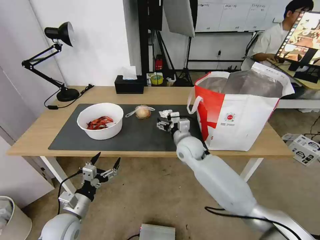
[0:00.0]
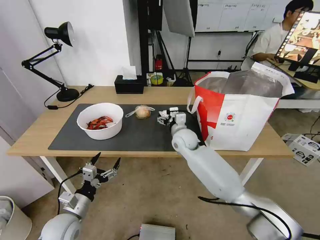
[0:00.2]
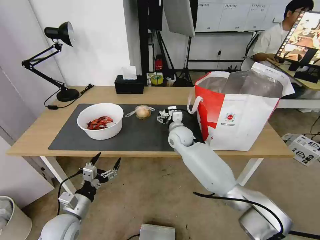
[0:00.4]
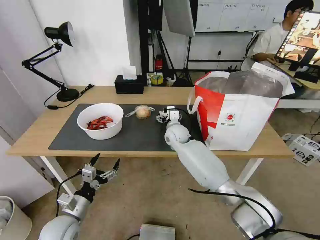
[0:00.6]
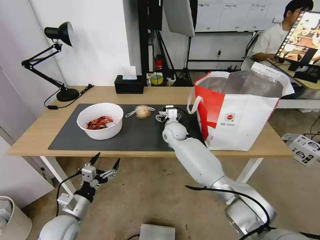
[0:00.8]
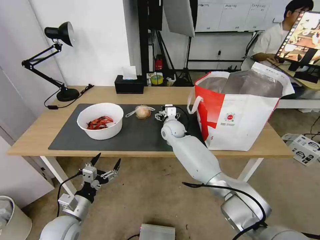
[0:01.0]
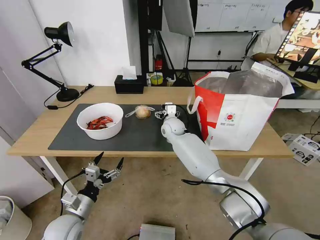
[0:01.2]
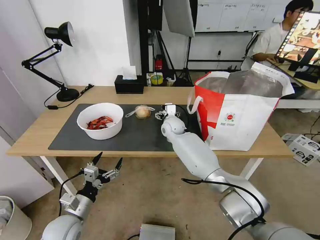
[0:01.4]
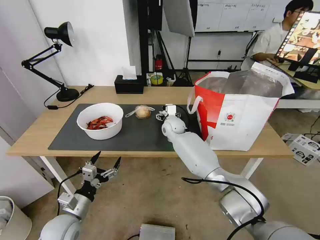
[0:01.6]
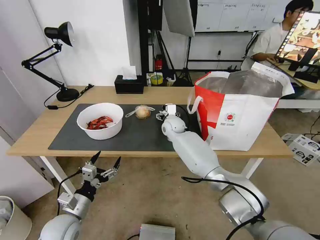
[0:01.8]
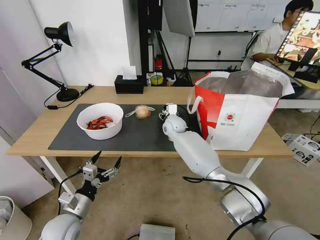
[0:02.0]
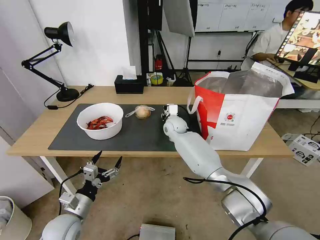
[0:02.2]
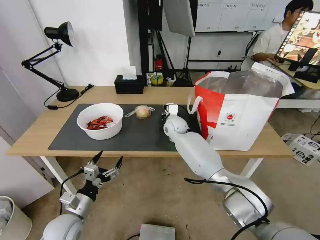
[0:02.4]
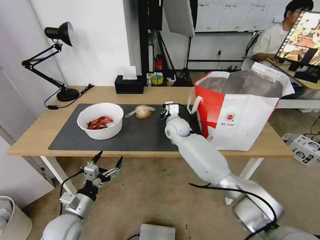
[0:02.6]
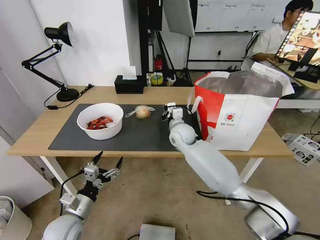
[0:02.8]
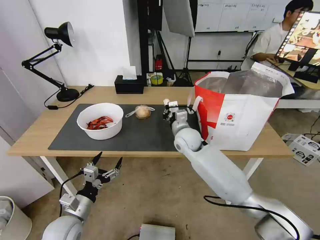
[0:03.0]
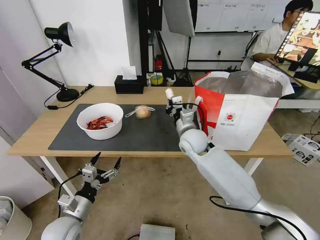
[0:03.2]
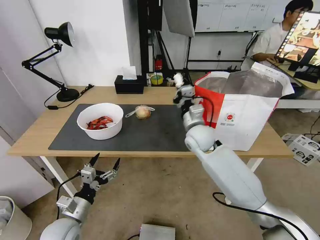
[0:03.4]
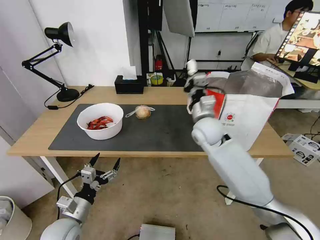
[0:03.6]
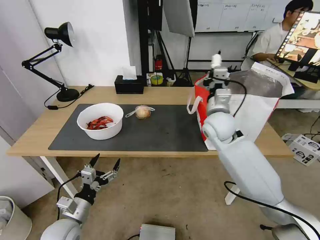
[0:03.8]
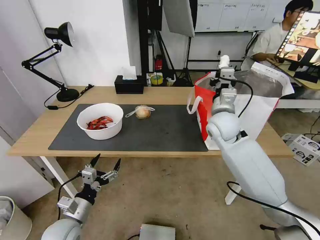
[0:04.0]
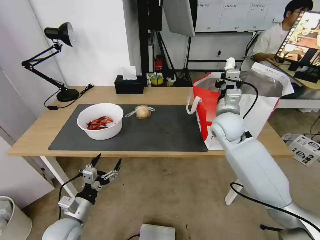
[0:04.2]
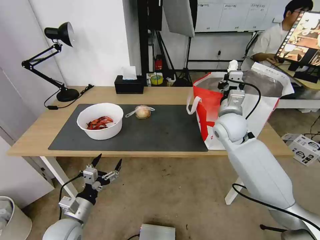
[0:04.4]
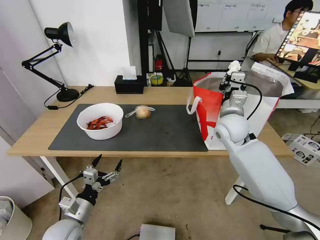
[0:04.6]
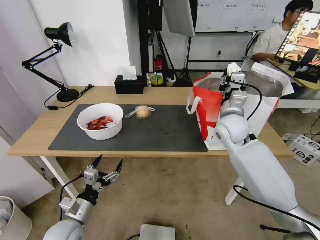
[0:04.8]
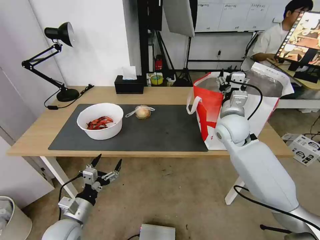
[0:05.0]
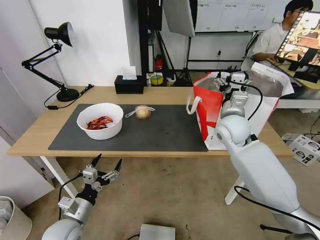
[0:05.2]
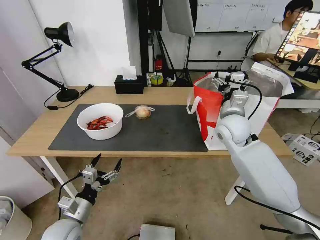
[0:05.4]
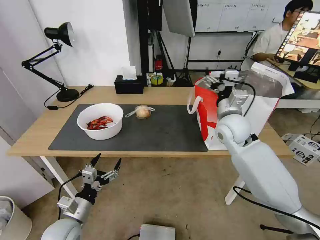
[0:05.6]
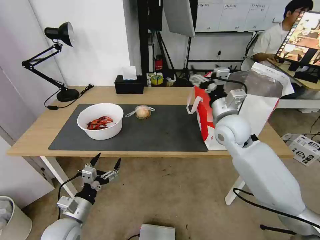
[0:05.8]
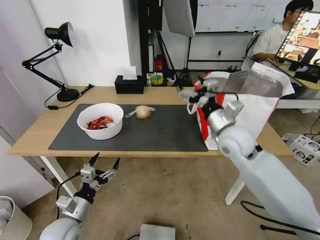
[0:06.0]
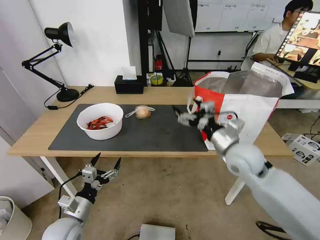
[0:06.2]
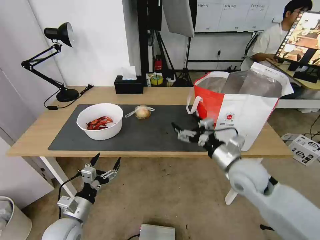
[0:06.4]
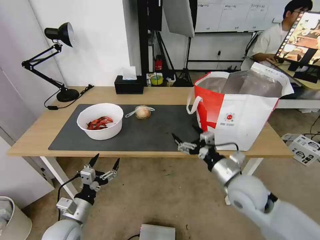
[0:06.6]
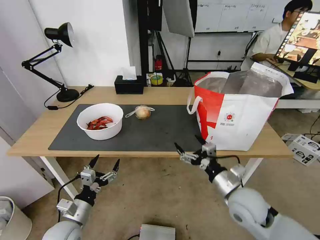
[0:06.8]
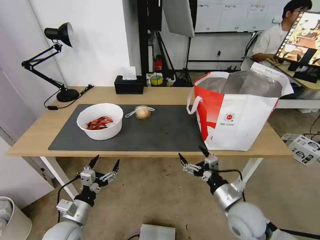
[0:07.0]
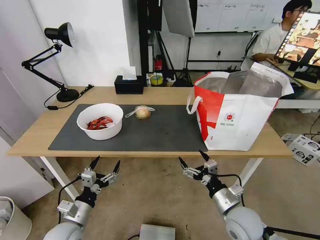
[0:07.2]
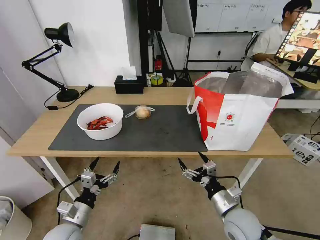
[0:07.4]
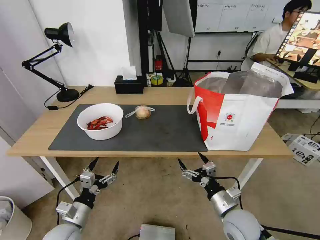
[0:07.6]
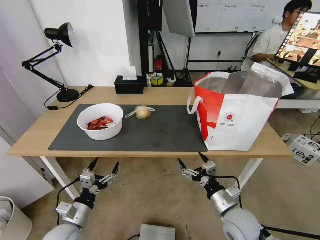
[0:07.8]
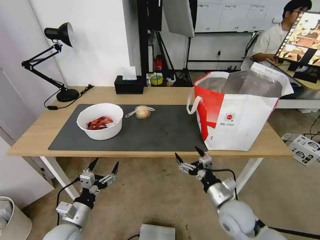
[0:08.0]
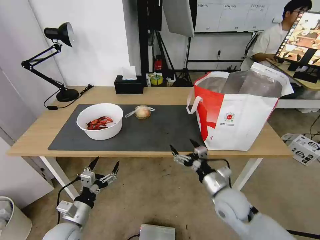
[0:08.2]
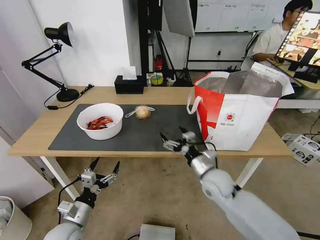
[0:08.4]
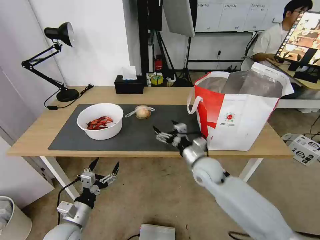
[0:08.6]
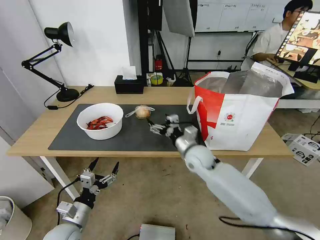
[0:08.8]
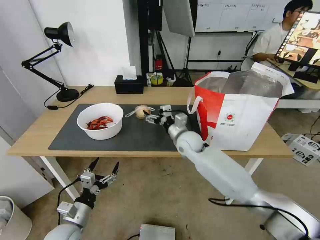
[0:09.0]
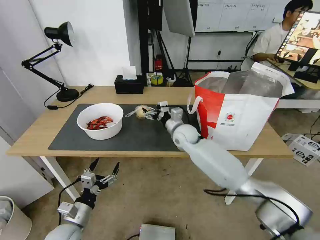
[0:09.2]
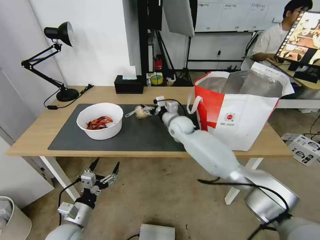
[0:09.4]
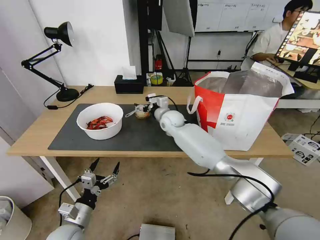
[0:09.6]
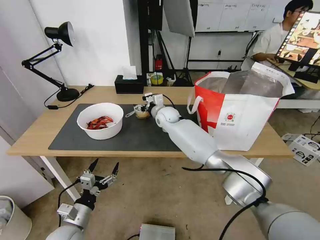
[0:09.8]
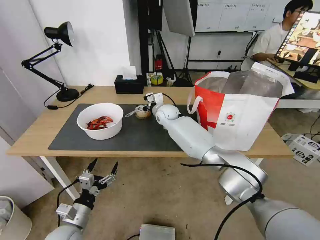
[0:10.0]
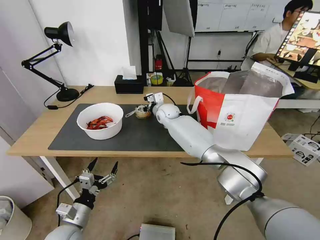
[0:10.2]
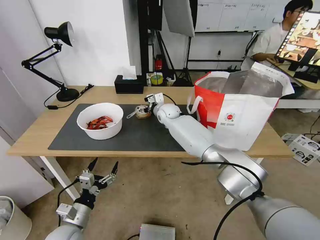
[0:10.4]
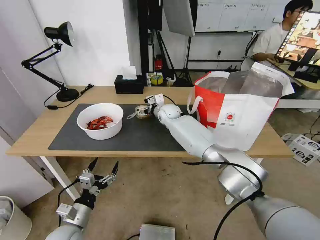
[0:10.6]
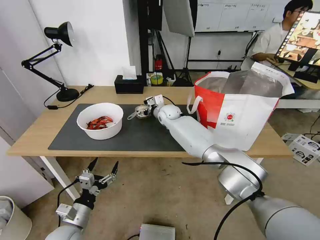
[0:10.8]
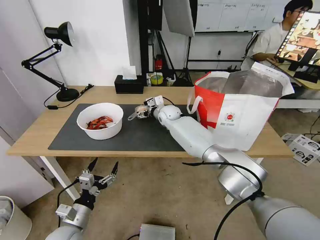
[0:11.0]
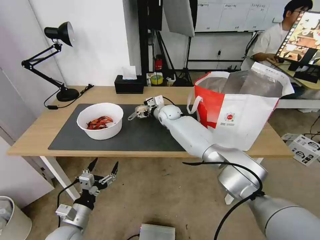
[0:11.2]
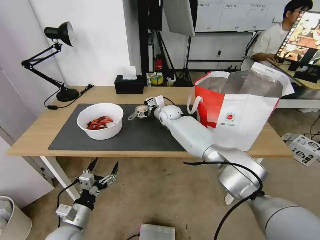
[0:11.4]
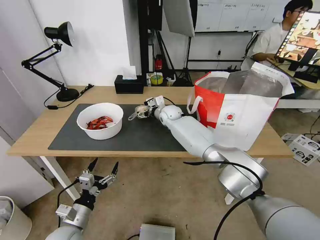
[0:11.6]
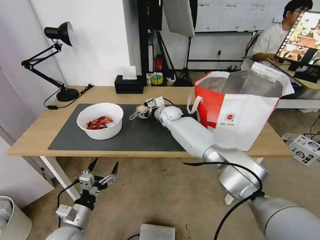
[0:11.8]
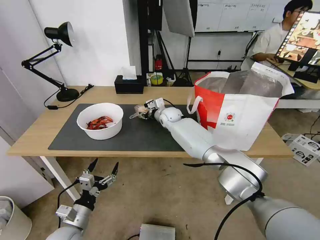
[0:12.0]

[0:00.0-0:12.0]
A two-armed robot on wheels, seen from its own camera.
Task of the whole recording: Pick up the trash from the table and place it into the takeout bag.
0:00.0 to 0:01.6: The right gripper travels forward by approximately 15 cm.
0:01.6 to 0:03.0: The right gripper heads backward, covering some 10 cm, and closes its fingers.
0:03.0 to 0:04.4: The right gripper shifts some 15 cm to the right and upward.
0:04.4 to 0:06.0: The right gripper heads backward, covering some 5 cm, and opens up.
0:06.0 to 0:07.6: The right gripper is displaced downward and backward by about 25 cm.
0:07.6 to 0:09.0: The right gripper heads forward and to the left, covering roughly 30 cm.
0:09.0 to 0:10.4: The right gripper travels forward and to the left by about 15 cm.
0:10.4 to 0:12.0: The right gripper closes its fingers.

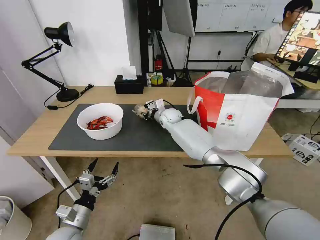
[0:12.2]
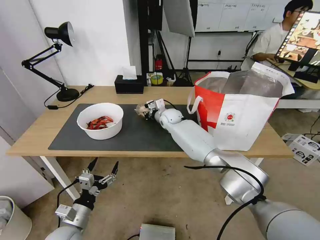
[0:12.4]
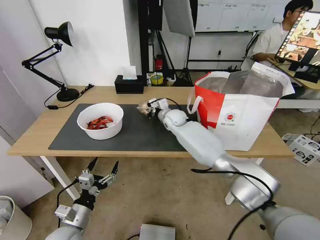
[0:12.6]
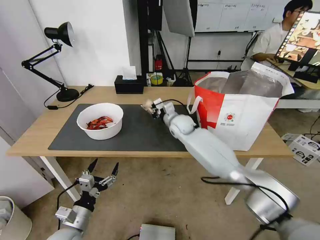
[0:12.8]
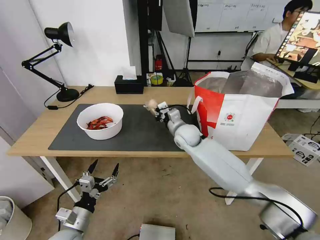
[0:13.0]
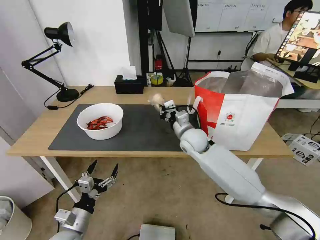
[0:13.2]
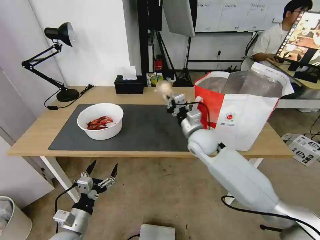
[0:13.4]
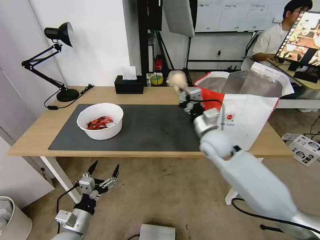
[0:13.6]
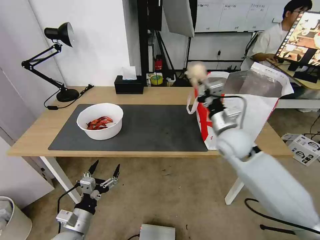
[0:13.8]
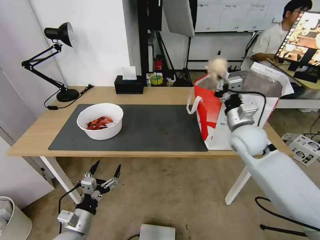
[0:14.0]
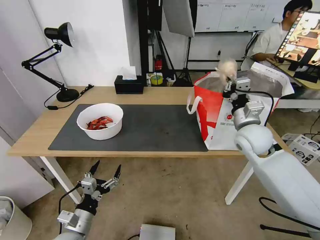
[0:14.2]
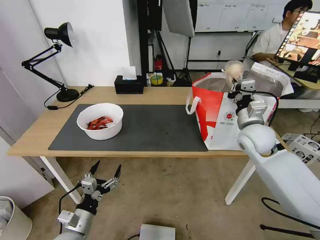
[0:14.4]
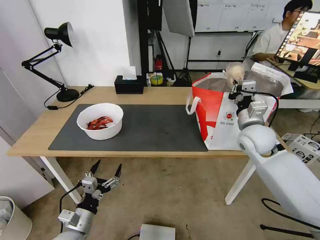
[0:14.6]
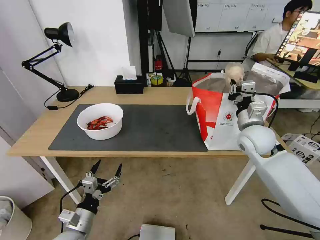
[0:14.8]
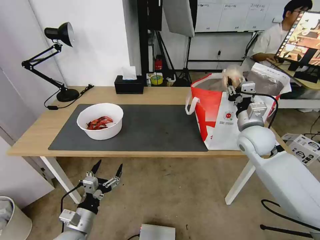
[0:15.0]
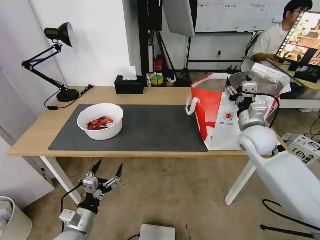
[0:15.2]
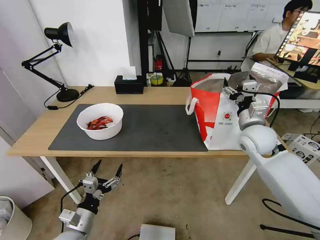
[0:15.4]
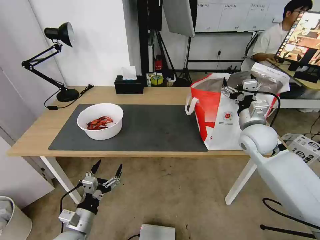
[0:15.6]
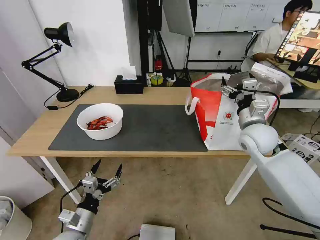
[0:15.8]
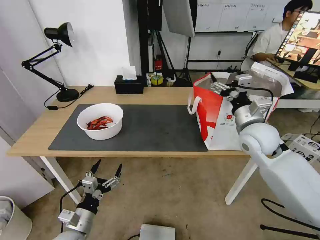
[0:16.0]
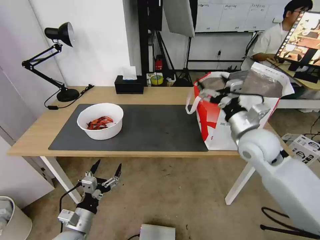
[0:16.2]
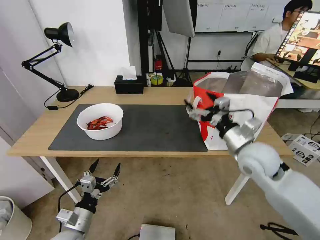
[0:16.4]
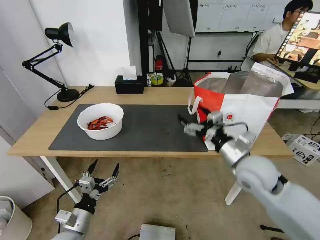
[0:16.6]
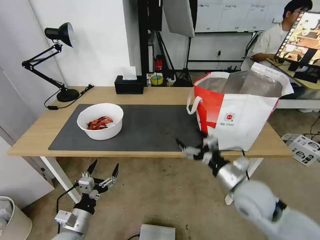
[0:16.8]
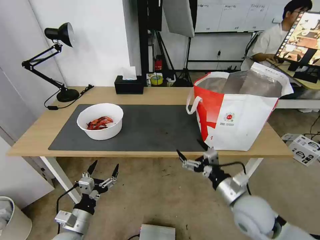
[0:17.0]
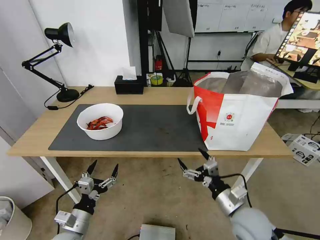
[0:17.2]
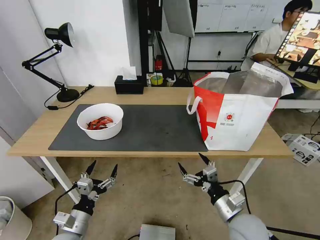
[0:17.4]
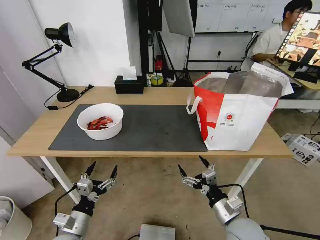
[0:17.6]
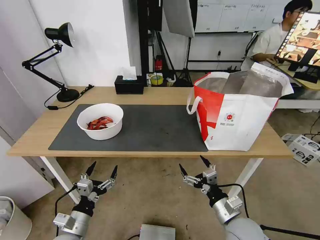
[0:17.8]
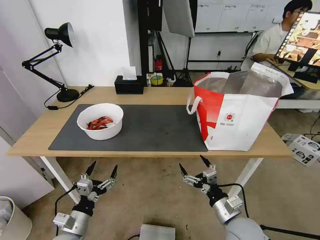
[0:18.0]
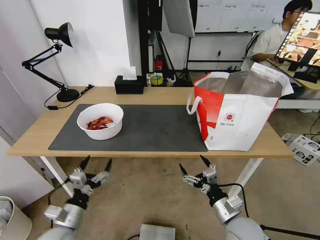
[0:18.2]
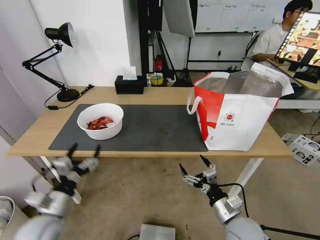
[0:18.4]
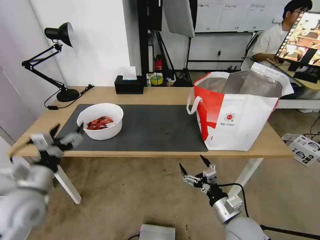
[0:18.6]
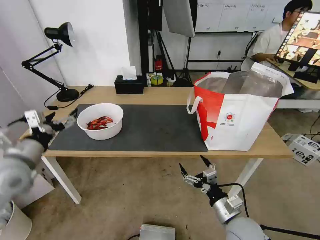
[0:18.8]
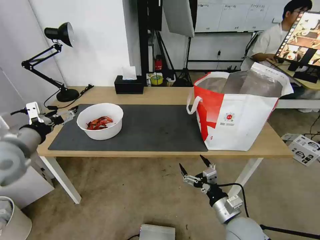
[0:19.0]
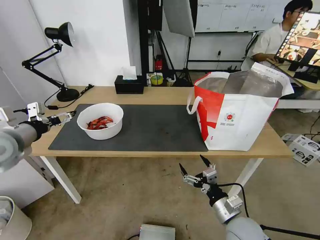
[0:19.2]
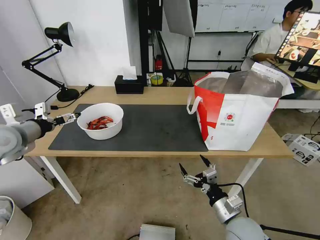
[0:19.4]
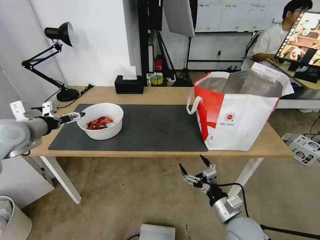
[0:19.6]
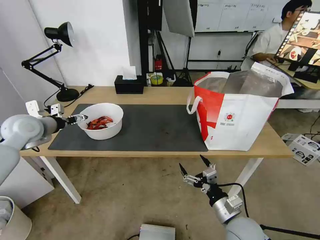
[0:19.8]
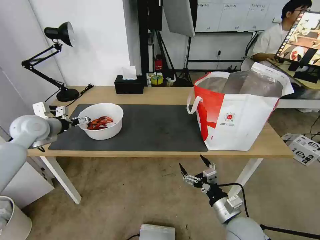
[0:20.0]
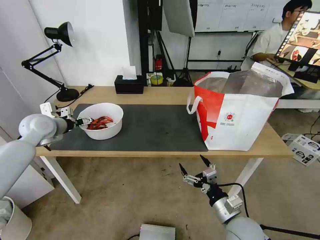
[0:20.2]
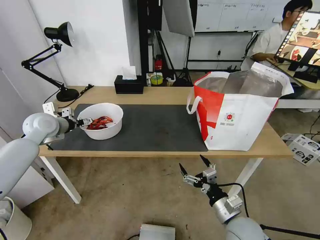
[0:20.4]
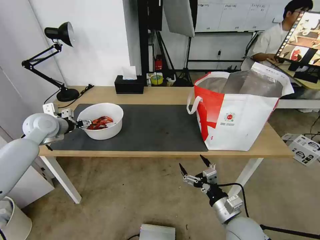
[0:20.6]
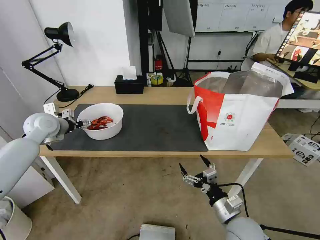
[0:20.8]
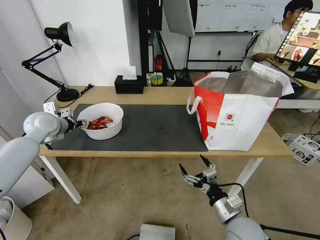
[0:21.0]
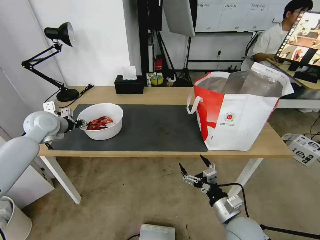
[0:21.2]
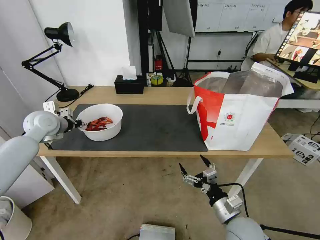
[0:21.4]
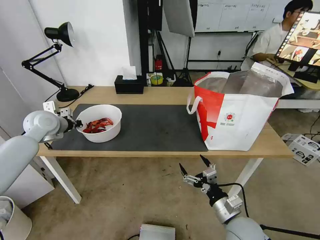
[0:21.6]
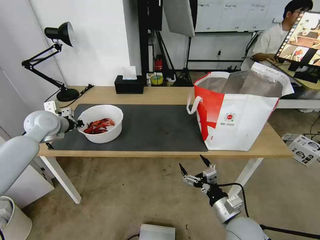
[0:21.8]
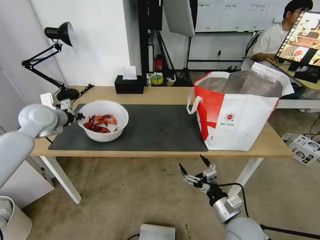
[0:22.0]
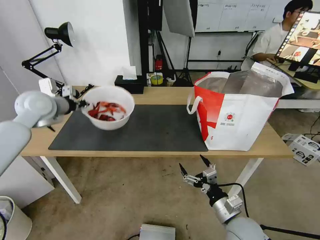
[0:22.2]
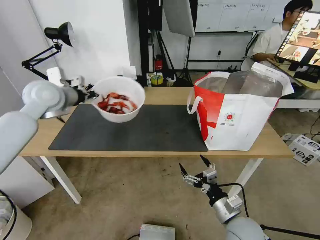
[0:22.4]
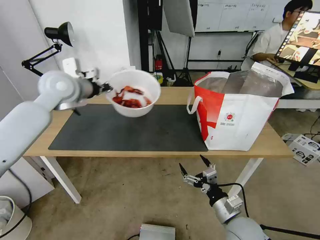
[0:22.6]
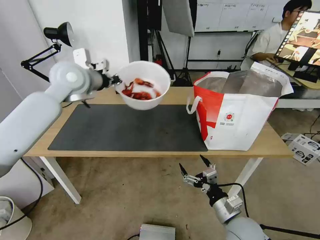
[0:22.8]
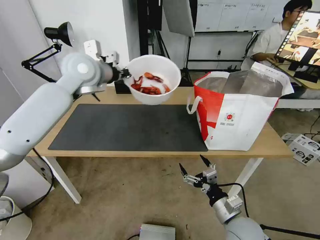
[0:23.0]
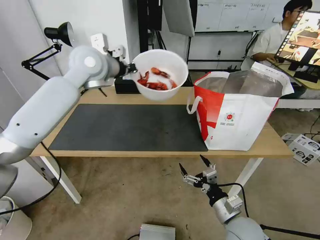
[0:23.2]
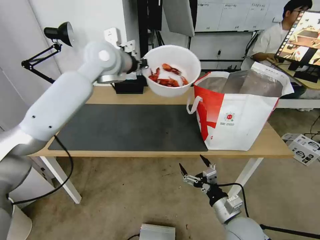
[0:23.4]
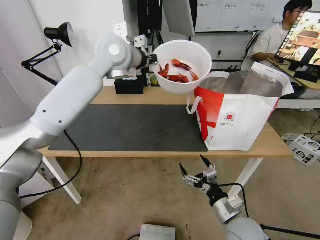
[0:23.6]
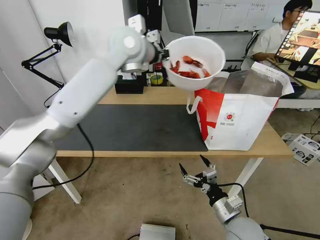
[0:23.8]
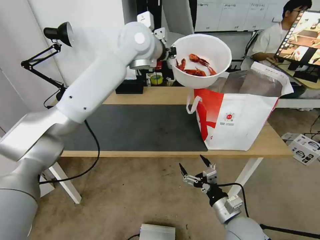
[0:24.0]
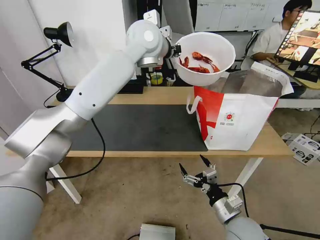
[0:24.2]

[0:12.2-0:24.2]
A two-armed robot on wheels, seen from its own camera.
Task of the whole recording: Pick up the trash from the table and place it into the takeout bag.
0:12.2 to 0:13.8: The right gripper travels backward, to the right and upward by approximately 30 cm.
0:13.8 to 0:15.2: The right gripper goes about 5 cm to the right, and opens up.
0:15.2 to 0:16.6: The right gripper shifts roughly 10 cm backward.
0:16.6 to 0:18.2: The right gripper travels downward and backward by about 20 cm.
0:18.2 to 0:19.8: The left gripper goes about 35 cm forward, upward and to the left.
0:19.8 to 0:21.2: The left gripper shifts by some 5 cm, and closes its fingers.
0:21.2 to 0:22.6: The left gripper travels upward and to the right by about 20 cm, and closes up.
0:22.6 to 0:24.2: The left gripper is displaced to the right and upward by approximately 25 cm.
